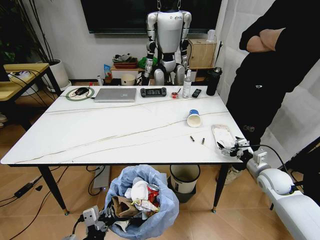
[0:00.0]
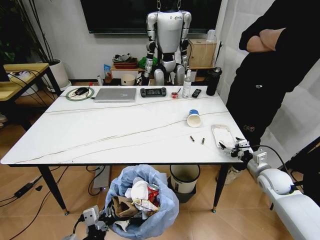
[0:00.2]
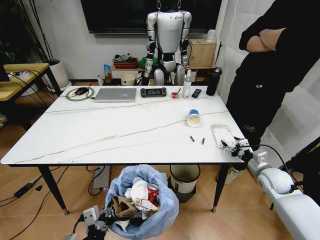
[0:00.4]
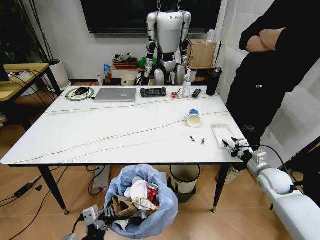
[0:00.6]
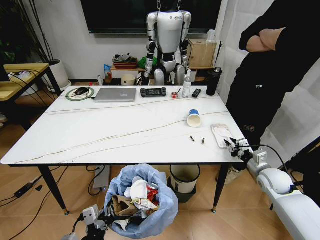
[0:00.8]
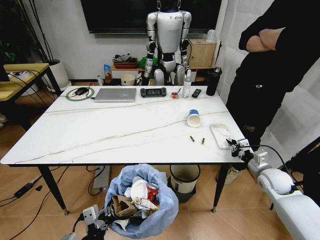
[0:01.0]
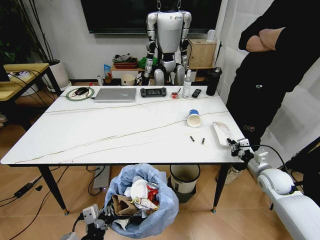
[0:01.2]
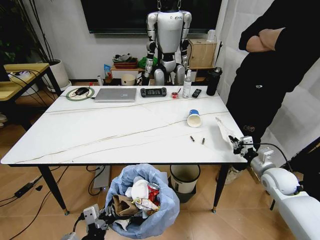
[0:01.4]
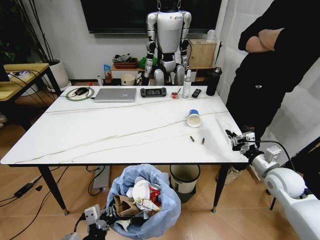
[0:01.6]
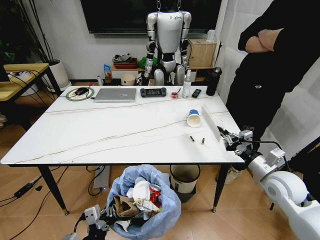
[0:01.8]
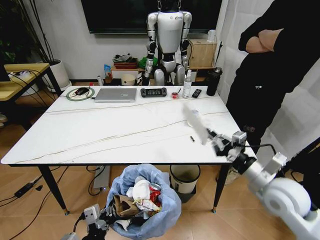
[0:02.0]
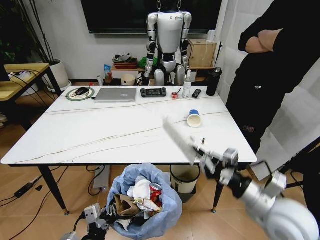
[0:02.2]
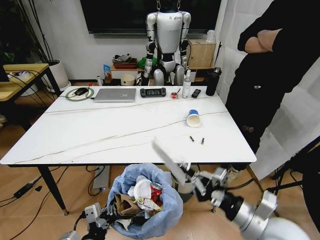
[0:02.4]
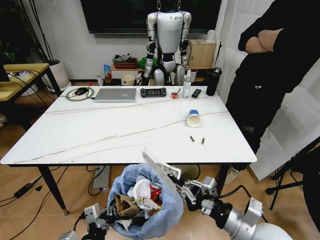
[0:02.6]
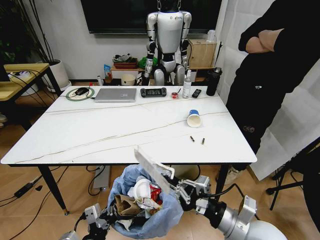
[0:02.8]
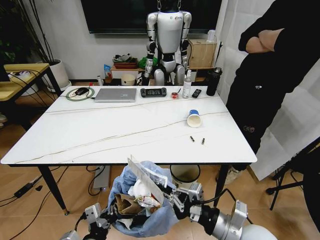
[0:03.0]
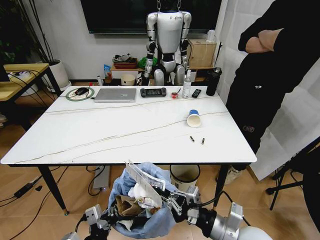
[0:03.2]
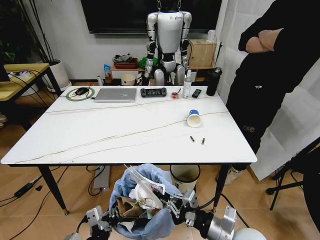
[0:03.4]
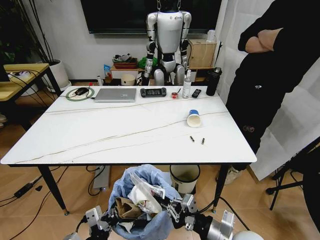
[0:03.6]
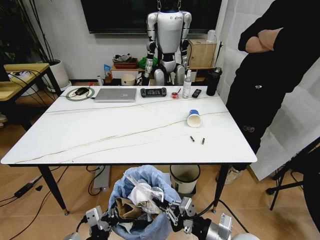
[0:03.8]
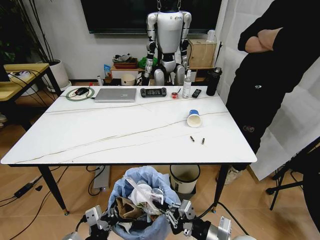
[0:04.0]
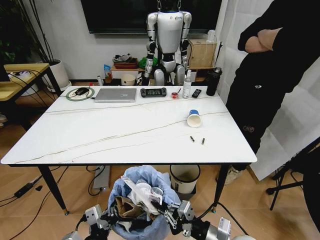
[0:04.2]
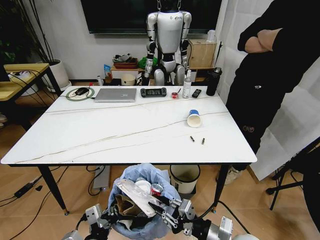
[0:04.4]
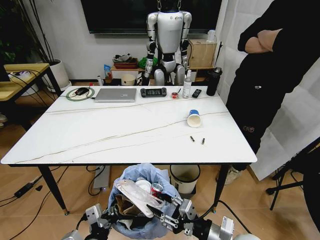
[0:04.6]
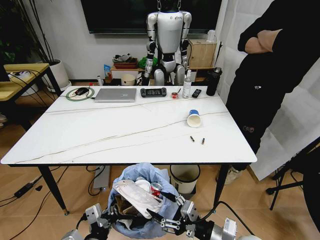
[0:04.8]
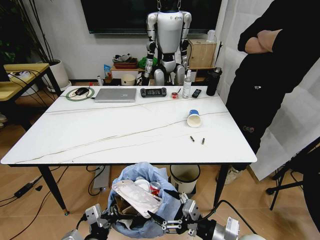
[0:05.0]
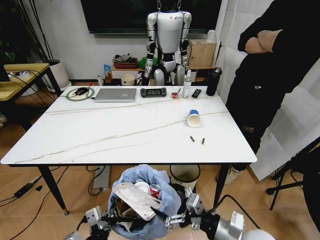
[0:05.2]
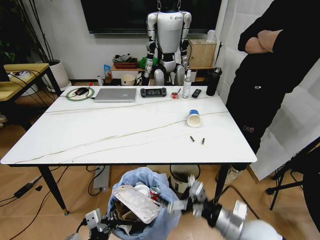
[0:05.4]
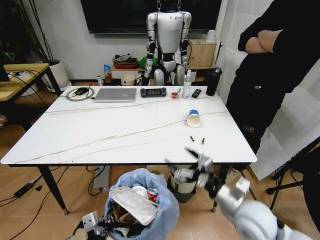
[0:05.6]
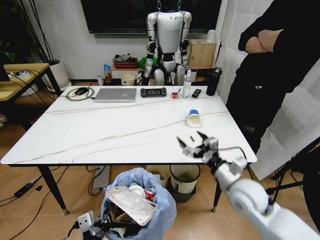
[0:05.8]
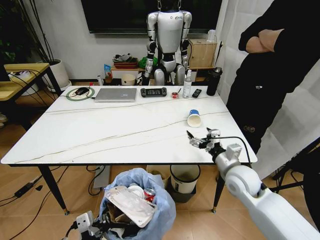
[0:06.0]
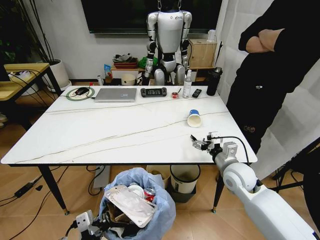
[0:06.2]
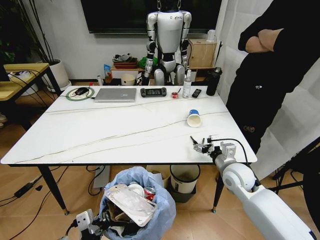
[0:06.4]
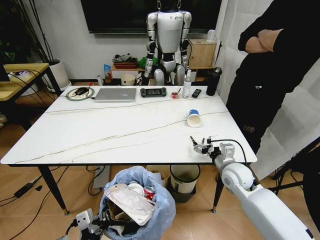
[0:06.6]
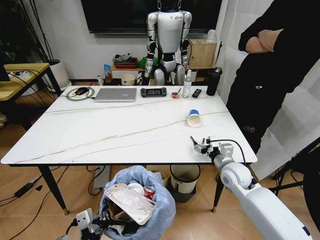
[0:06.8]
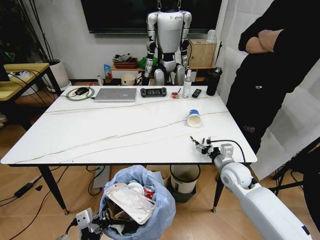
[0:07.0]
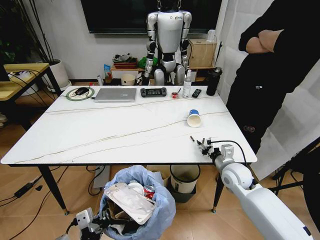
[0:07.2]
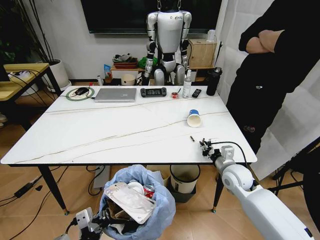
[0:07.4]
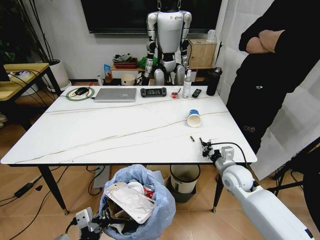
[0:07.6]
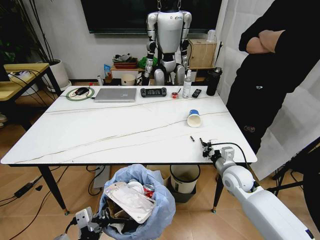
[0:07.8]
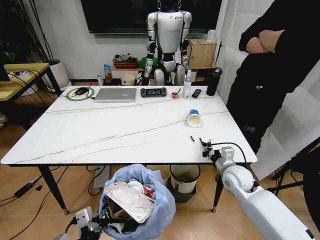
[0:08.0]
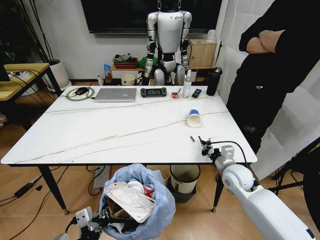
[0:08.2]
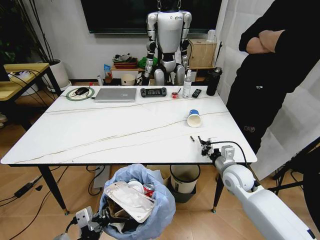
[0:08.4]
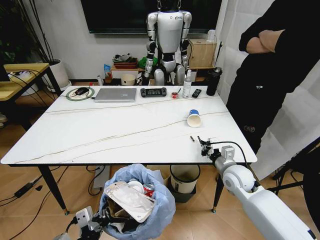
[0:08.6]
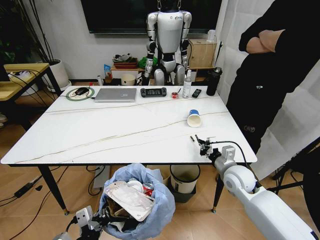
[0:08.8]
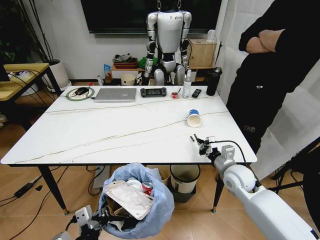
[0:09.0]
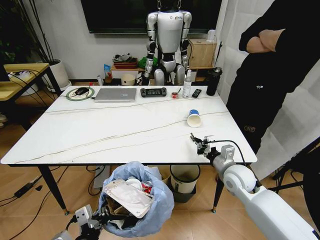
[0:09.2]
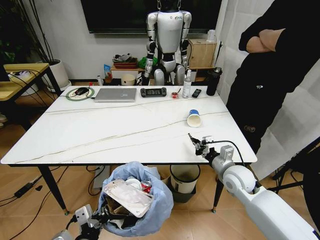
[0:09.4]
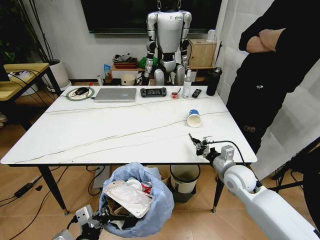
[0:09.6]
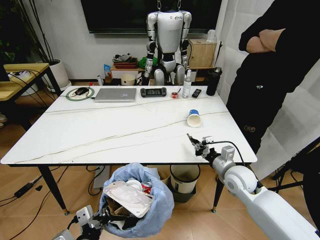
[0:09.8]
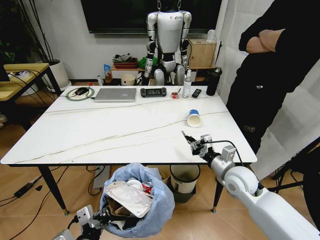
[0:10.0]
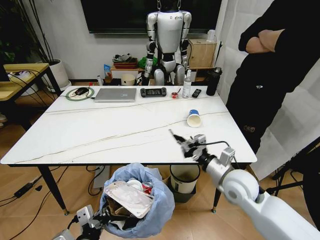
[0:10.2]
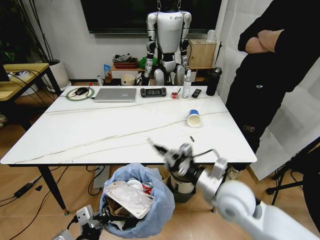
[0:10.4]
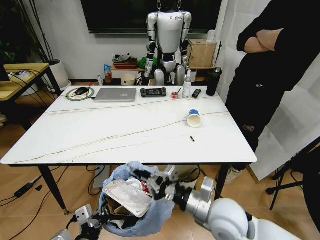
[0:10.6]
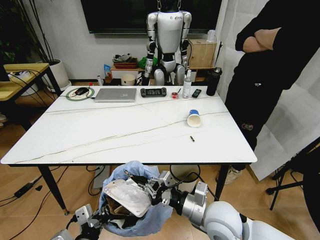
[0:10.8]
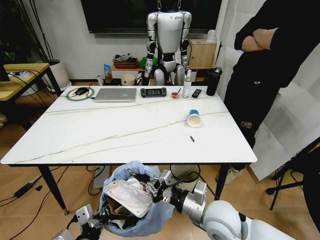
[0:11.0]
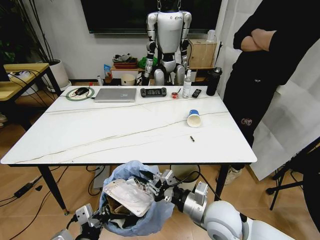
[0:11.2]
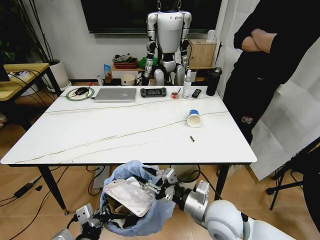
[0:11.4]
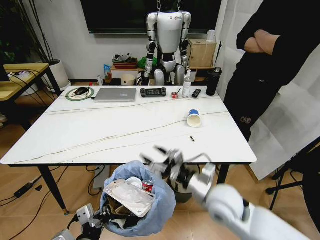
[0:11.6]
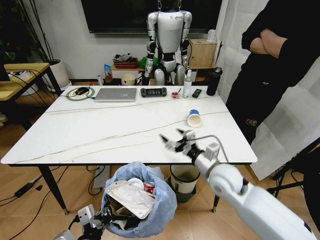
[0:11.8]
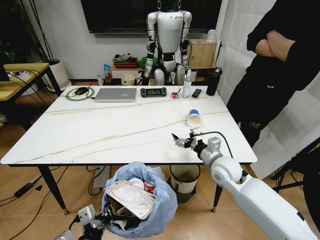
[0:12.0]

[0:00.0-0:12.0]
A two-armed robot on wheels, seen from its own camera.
Task of the whole recording: Pick up the trash bin and place the trash from the table into it.
0:00.0 to 0:01.6: The right gripper ends up roughly 5 cm from where it was, and closes up.
0:01.6 to 0:03.0: The right gripper shifts about 25 cm to the left and backward.
0:03.0 to 0:04.4: The right gripper shifts some 5 cm downward.
0:04.4 to 0:06.0: The right gripper goes approximately 20 cm forward, and opens up.
0:06.0 to 0:07.6: The right gripper is displaced downward by approximately 5 cm, and closes.
0:07.6 to 0:09.0: The grippers stay close to where they were, moving slightly.
0:09.0 to 0:10.4: The right gripper heads backward, to the left and upward, covering some 15 cm.
0:10.4 to 0:12.0: The right gripper shifts approximately 10 cm forward, and opens its fingers.

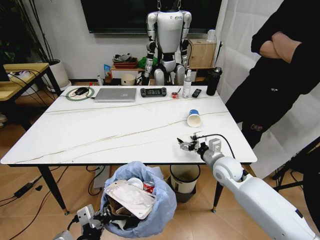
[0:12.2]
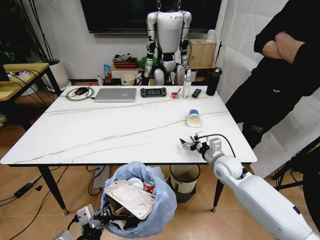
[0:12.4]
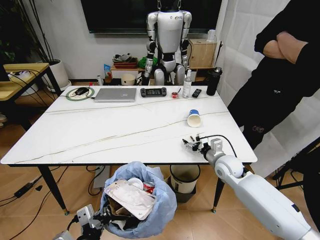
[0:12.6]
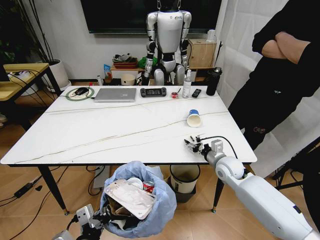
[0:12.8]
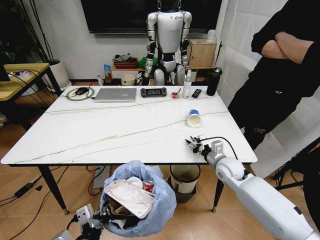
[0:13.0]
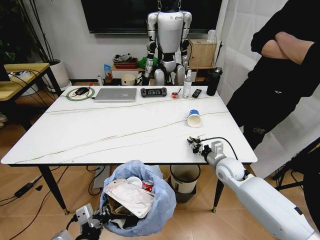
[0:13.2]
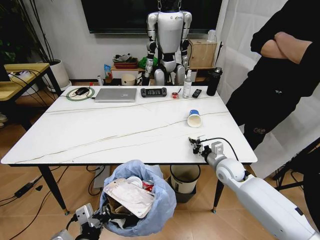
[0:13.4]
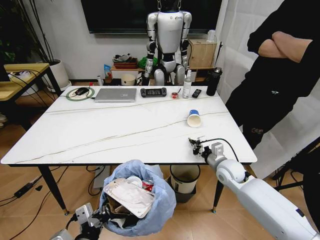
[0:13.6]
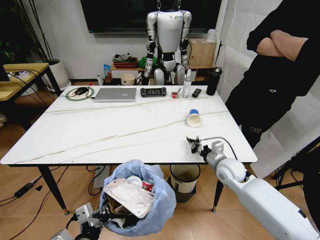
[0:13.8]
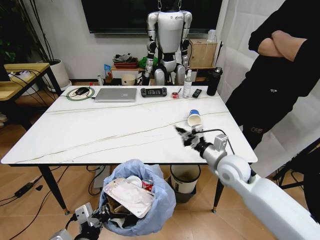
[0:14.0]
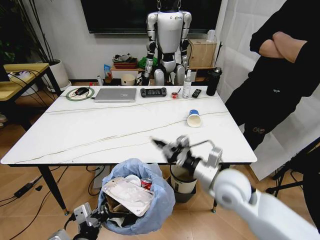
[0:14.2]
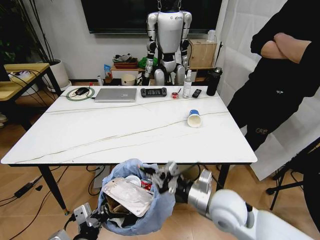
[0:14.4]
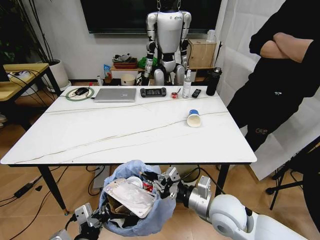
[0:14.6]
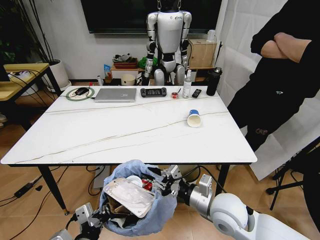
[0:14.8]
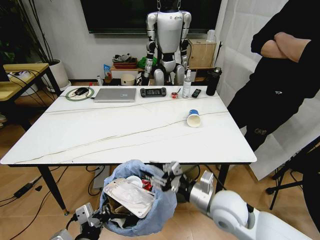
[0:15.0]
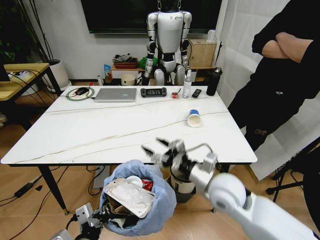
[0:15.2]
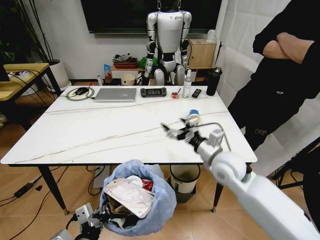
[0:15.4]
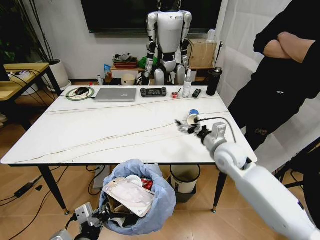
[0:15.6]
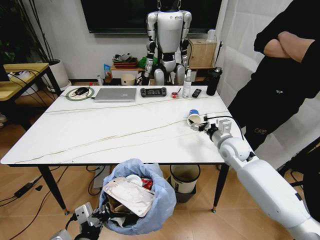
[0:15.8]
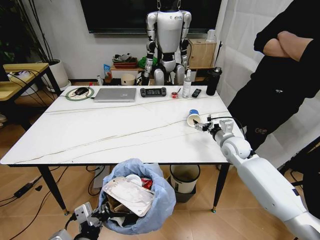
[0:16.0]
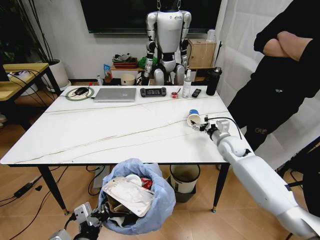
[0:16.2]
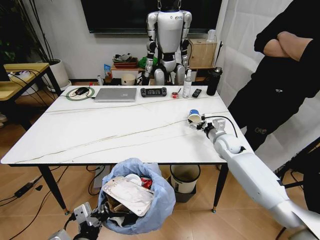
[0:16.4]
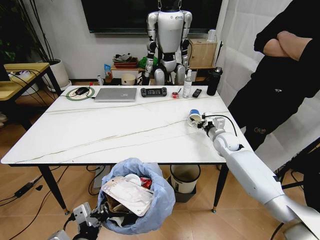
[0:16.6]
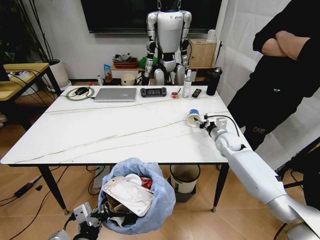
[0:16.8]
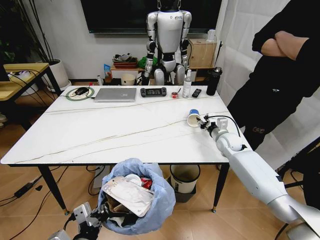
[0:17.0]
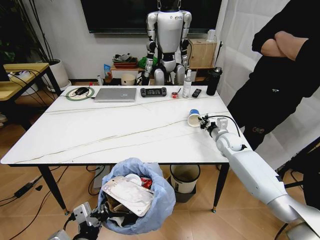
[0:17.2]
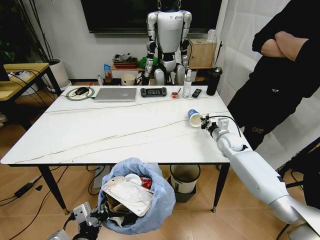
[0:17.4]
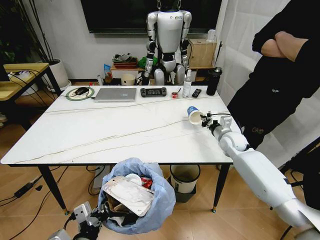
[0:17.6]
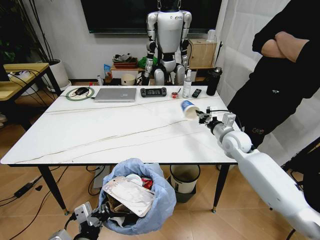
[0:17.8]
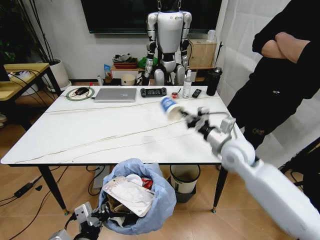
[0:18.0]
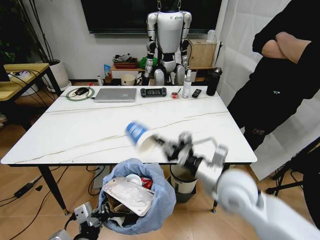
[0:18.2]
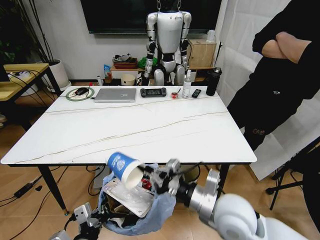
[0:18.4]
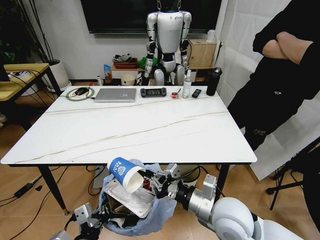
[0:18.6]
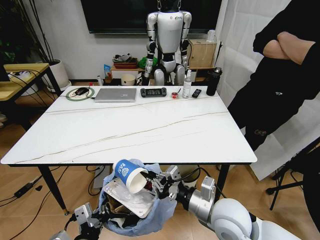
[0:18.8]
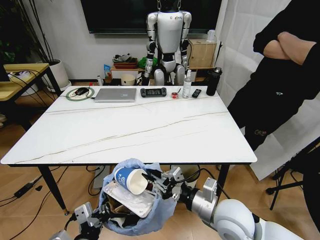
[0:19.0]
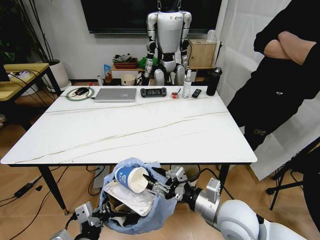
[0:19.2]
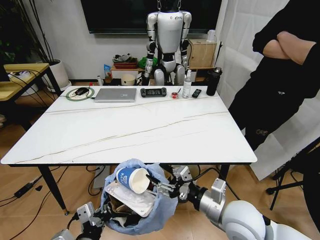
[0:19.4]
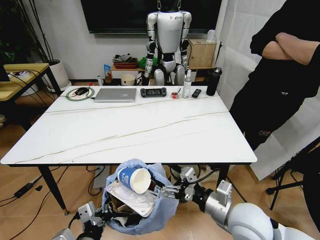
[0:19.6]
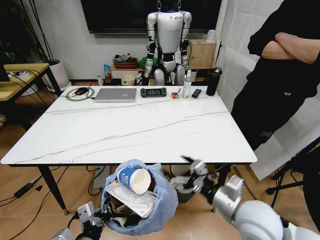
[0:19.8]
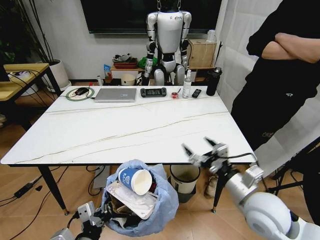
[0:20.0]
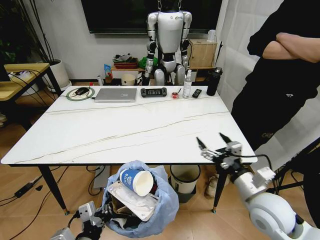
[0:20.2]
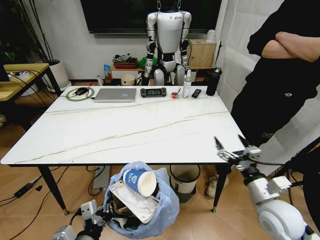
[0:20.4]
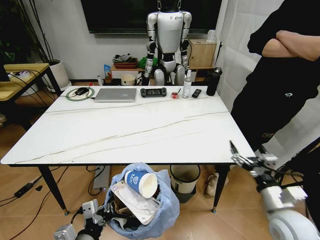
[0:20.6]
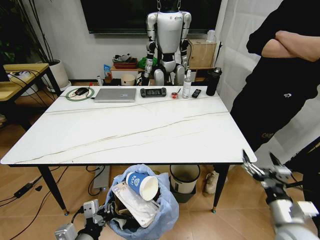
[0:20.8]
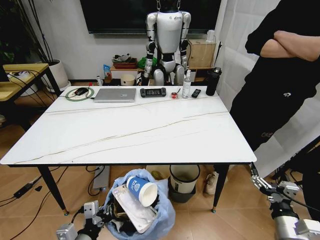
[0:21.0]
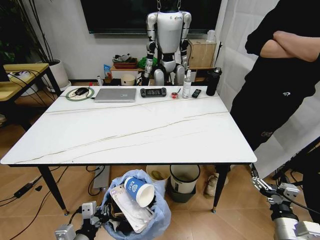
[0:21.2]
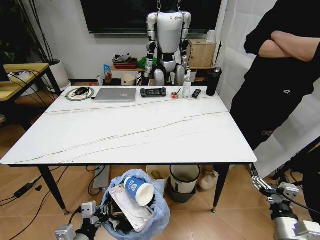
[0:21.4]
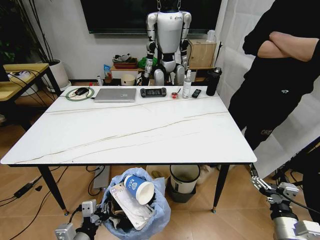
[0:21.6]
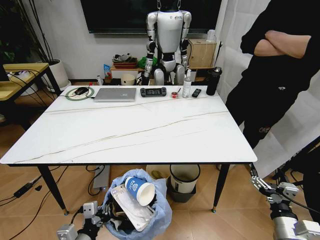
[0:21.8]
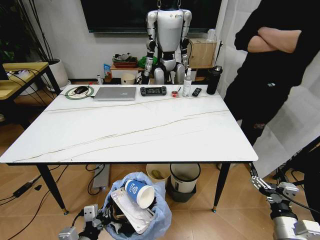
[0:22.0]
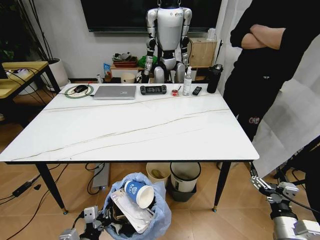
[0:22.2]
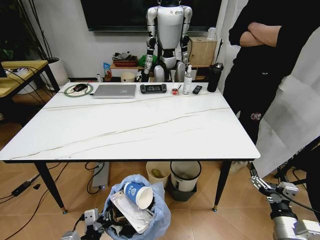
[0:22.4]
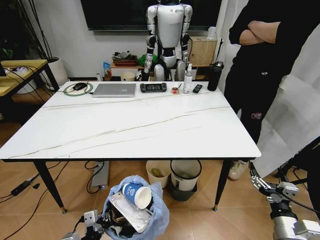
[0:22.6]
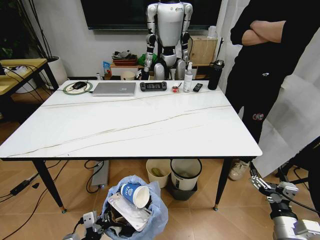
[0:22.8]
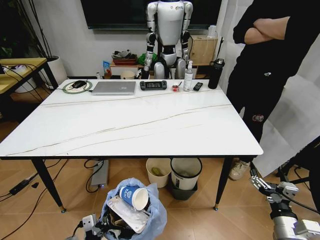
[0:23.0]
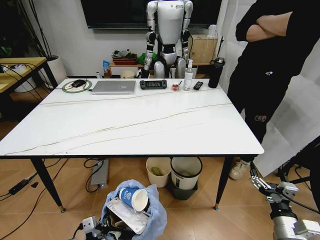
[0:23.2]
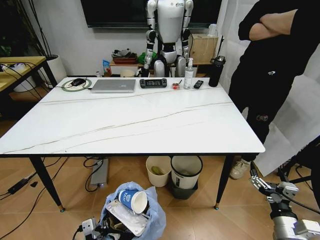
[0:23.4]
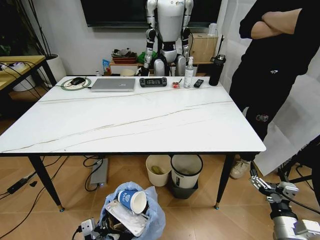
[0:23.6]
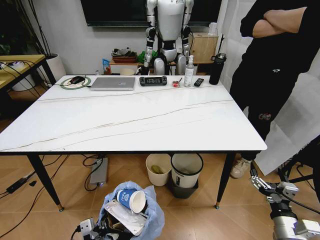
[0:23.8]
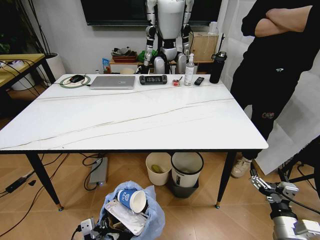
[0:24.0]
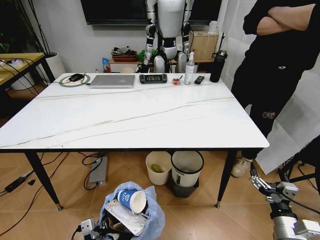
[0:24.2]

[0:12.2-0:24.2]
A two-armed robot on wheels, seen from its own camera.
Task of the whole recording: Pick up the trash bin and place the trash from the table into it.
0:12.2 to 0:13.8: The right gripper closes its fingers.
0:13.8 to 0:15.2: The right gripper moves backward, upward and to the left, roughly 15 cm, and opens its fingers.
0:15.2 to 0:16.6: The right gripper heads forward and to the right, covering approximately 25 cm.
0:16.6 to 0:18.2: The right gripper travels backward and upward by roughly 25 cm, and closes its fingers.
0:18.2 to 0:19.8: The right gripper is displaced backward by some 5 cm, and opens up.
0:19.8 to 0:21.2: The left gripper moves downward, roughly 5 cm. Meanwhile the right gripper is displaced to the right, downward and backward by roughly 20 cm.
